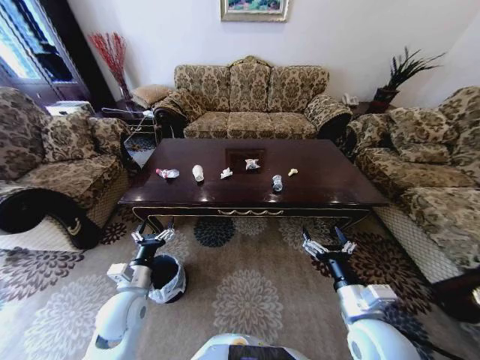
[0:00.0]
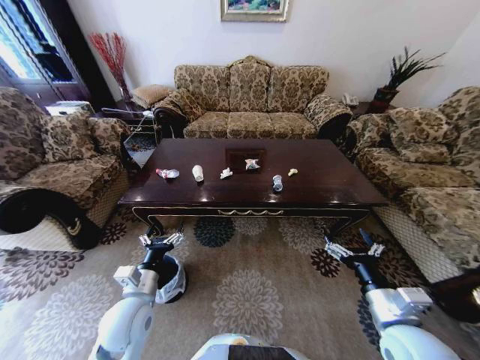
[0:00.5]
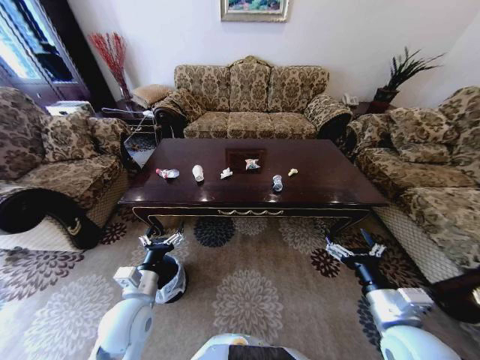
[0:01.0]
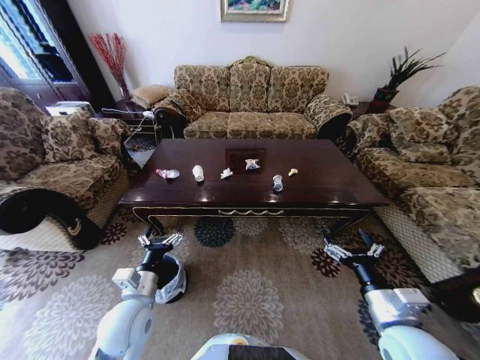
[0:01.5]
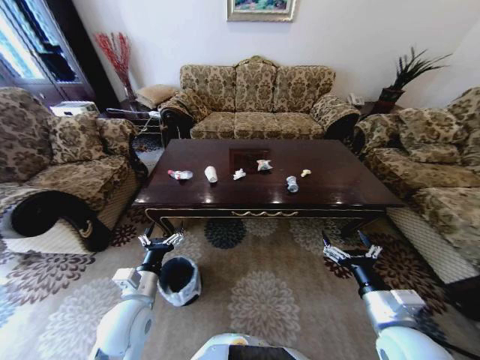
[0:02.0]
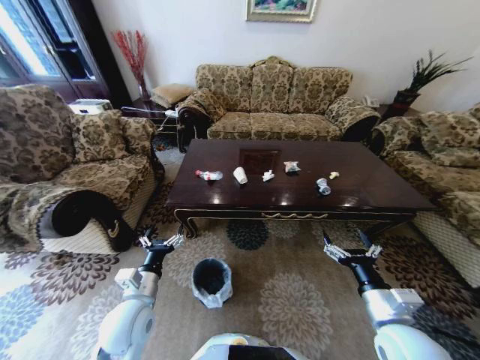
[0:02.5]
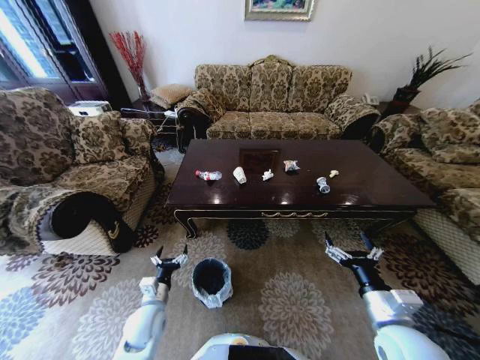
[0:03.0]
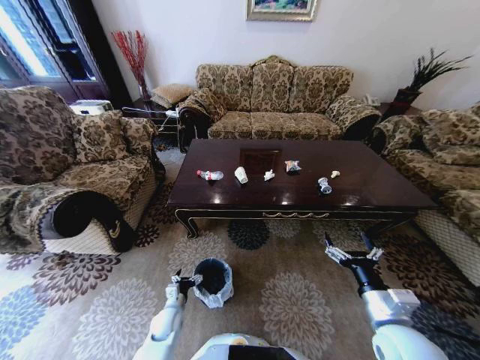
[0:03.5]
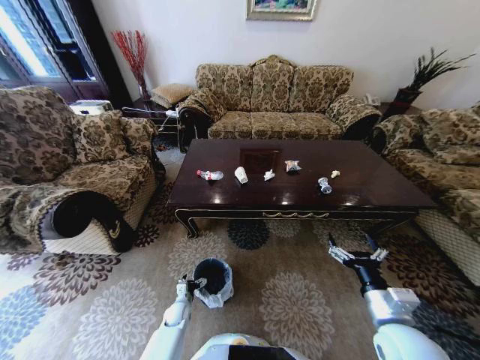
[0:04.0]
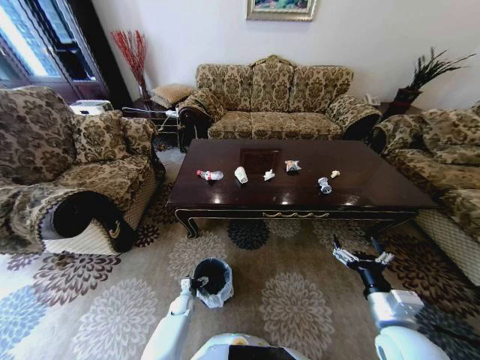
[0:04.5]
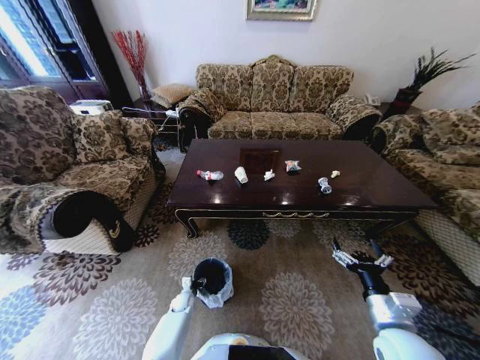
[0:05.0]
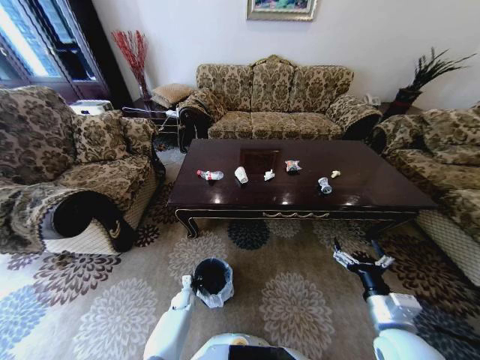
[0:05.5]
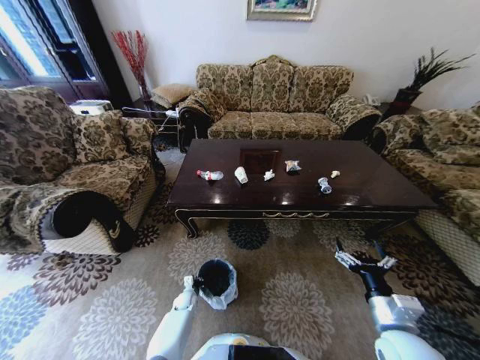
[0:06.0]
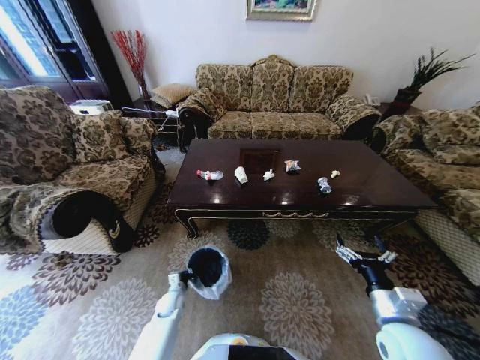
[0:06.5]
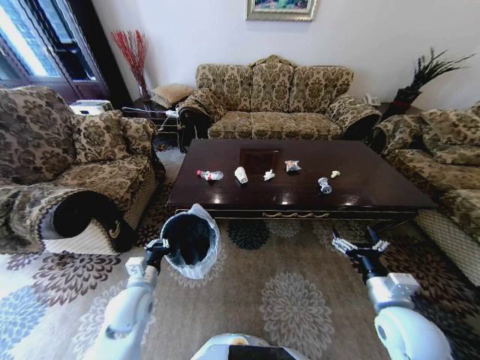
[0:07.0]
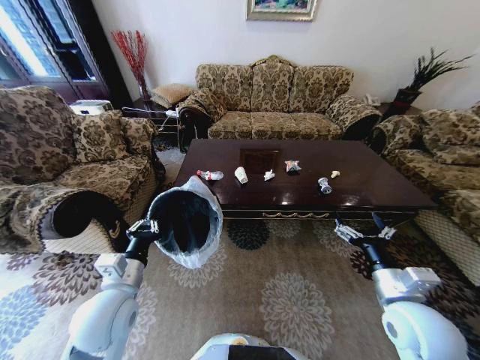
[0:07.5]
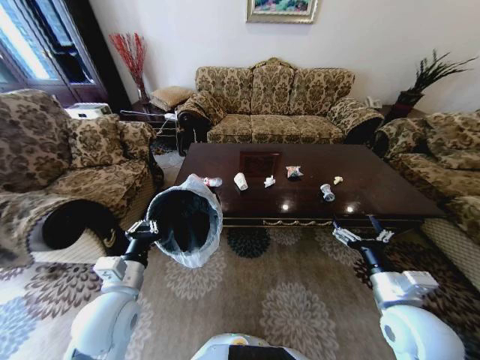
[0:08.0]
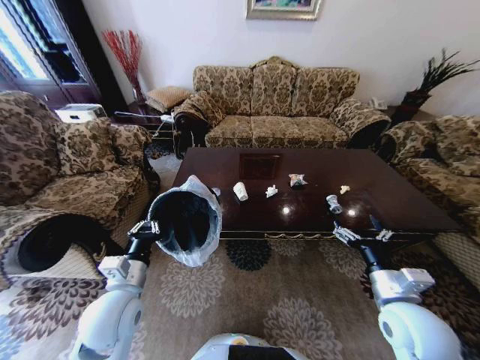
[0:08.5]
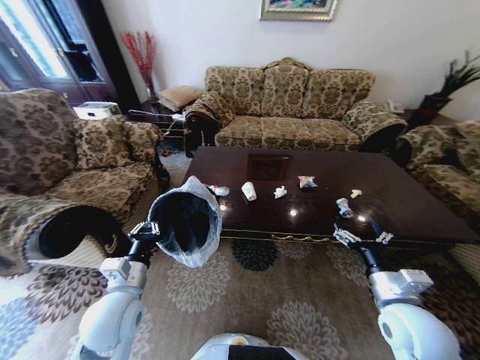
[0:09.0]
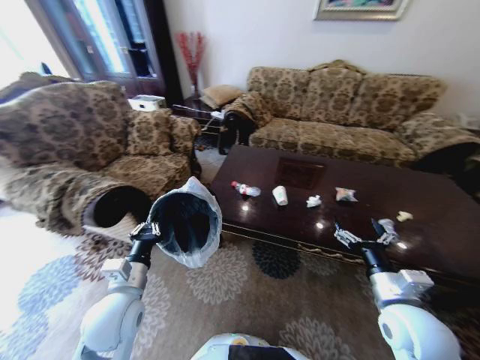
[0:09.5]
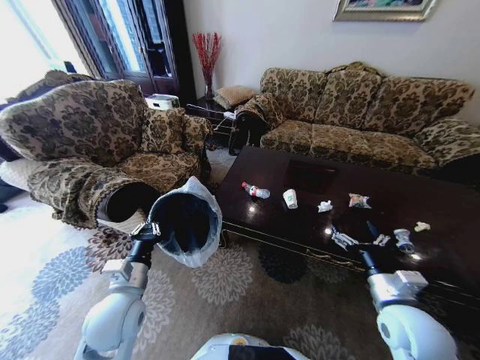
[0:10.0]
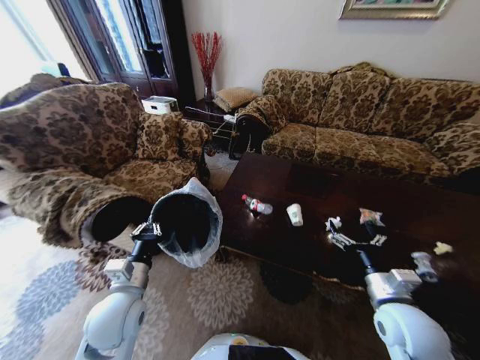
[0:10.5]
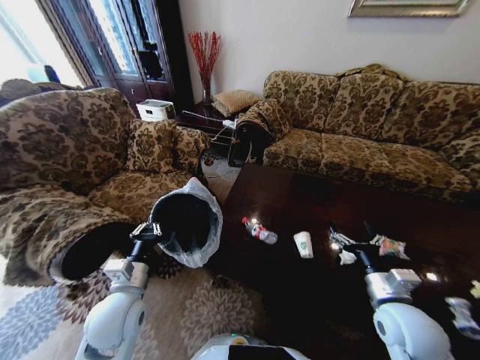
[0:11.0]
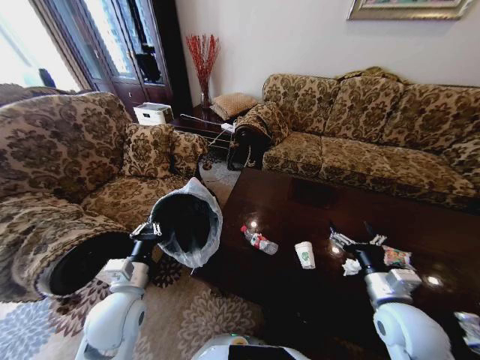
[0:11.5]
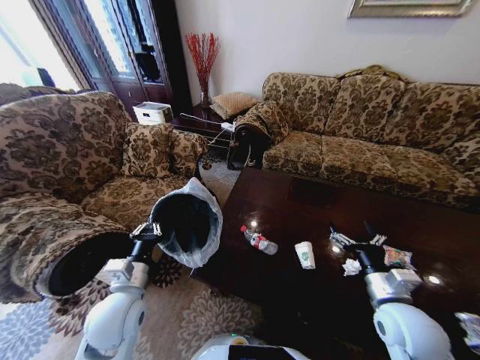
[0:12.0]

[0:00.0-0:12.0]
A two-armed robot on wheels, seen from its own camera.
Task of the whole recording: Move to the front of the table and place the trash on the table into the trash bin.
0:02.0 to 0:04.0: The left gripper travels downward by approximately 30 cm.
0:04.0 to 0:06.0: The left gripper moves approximately 5 cm, and closes.
0:06.0 to 0:08.0: The left gripper heads upward, covering some 40 cm; the right gripper goes approximately 5 cm upward.

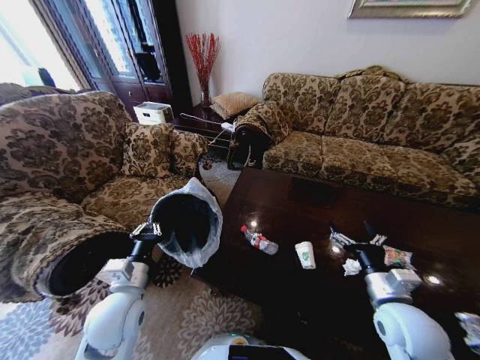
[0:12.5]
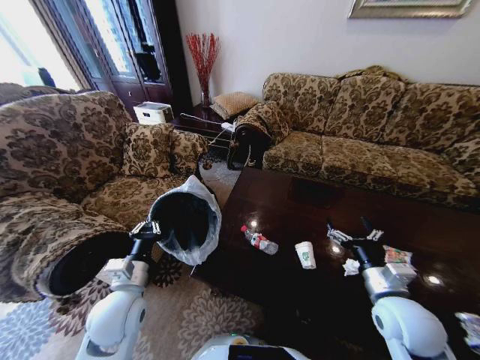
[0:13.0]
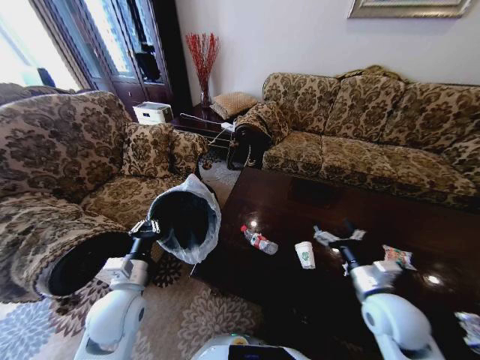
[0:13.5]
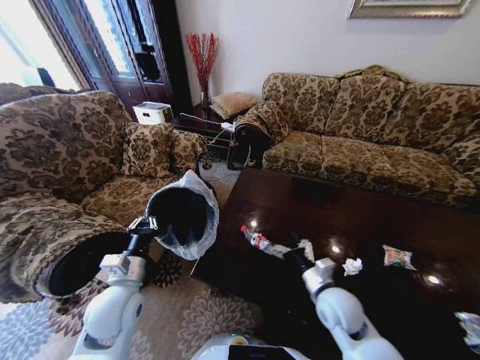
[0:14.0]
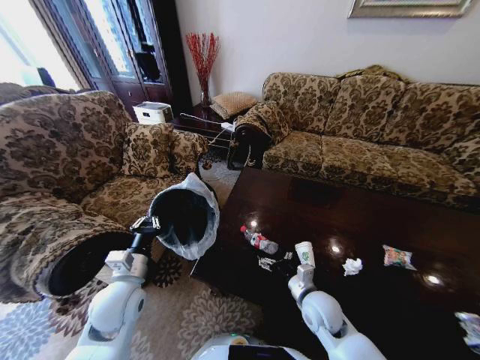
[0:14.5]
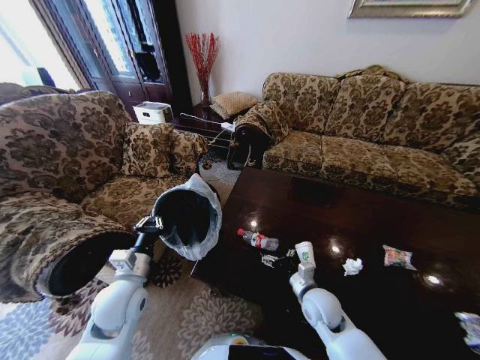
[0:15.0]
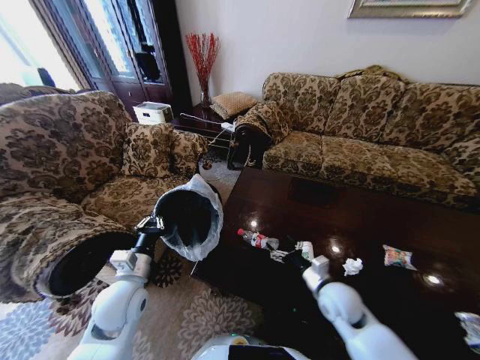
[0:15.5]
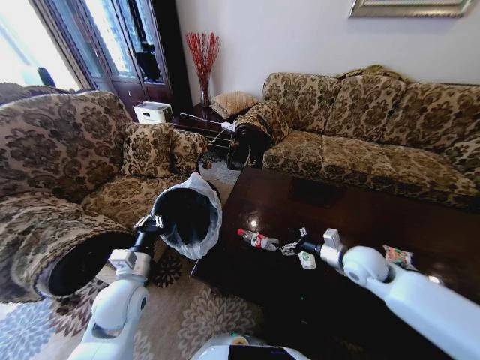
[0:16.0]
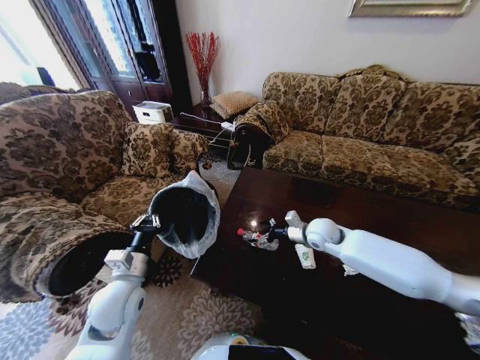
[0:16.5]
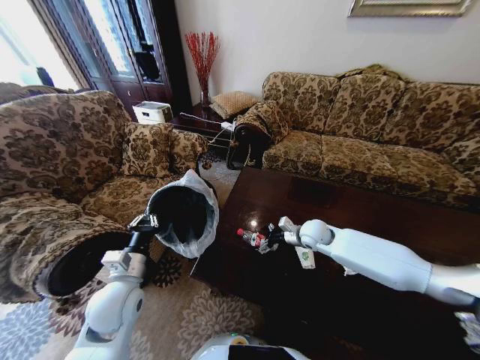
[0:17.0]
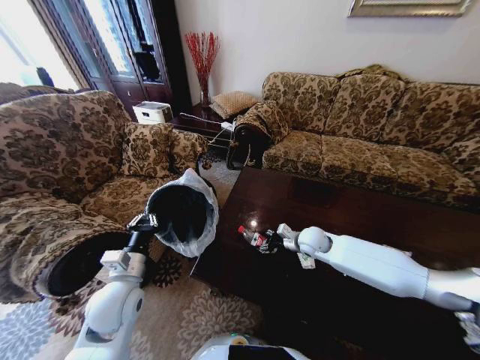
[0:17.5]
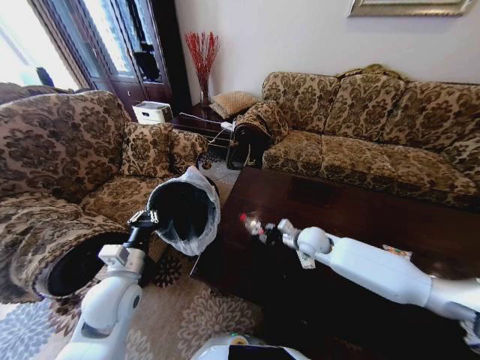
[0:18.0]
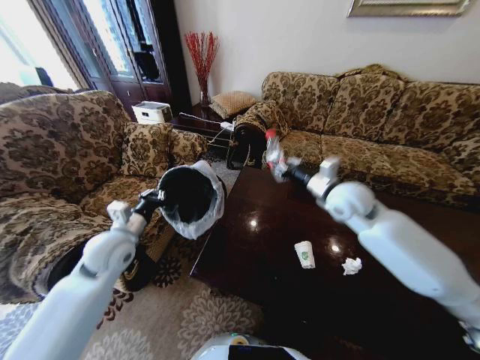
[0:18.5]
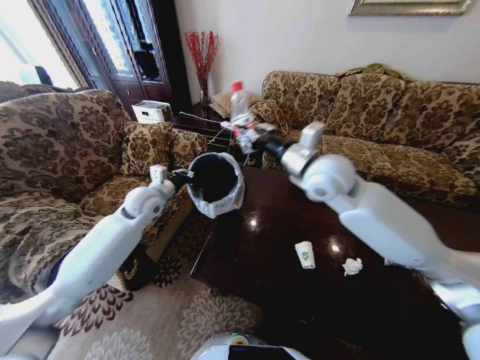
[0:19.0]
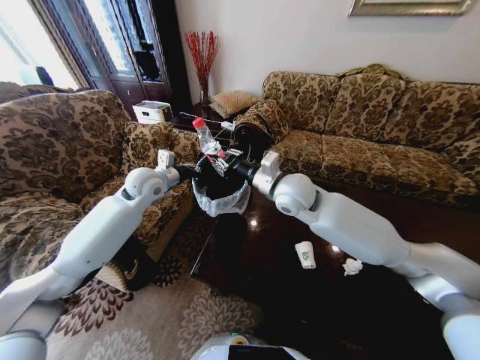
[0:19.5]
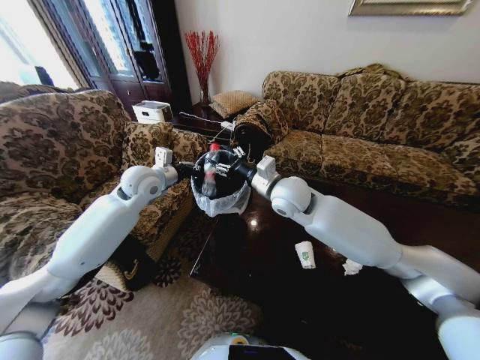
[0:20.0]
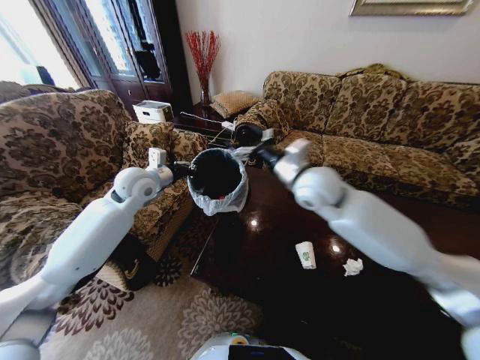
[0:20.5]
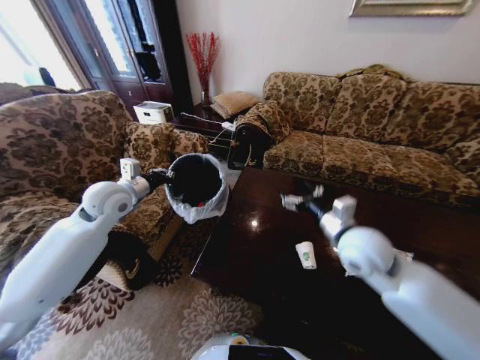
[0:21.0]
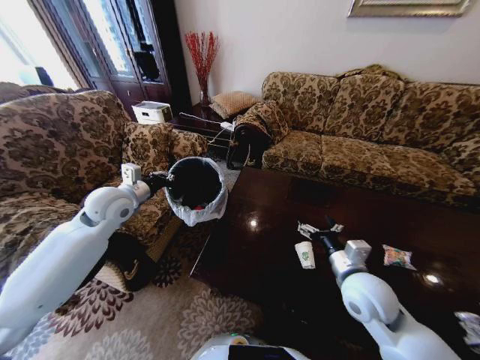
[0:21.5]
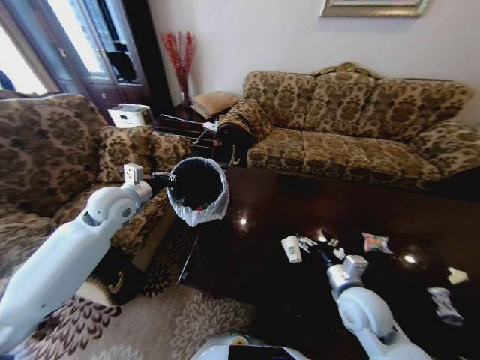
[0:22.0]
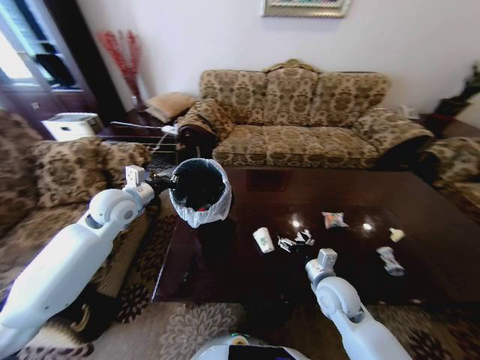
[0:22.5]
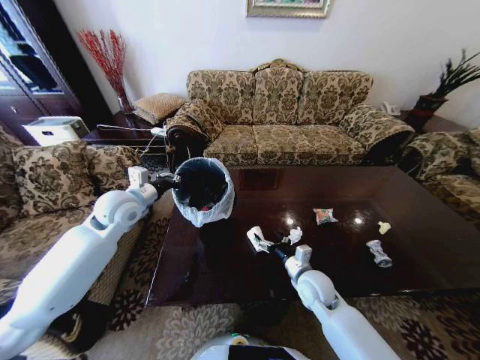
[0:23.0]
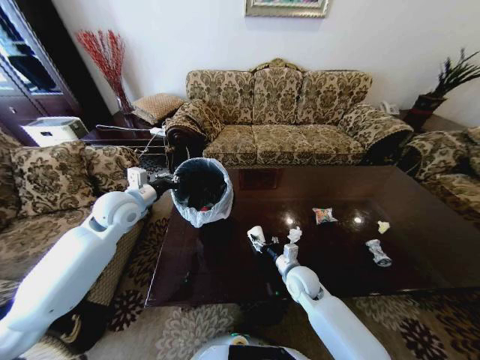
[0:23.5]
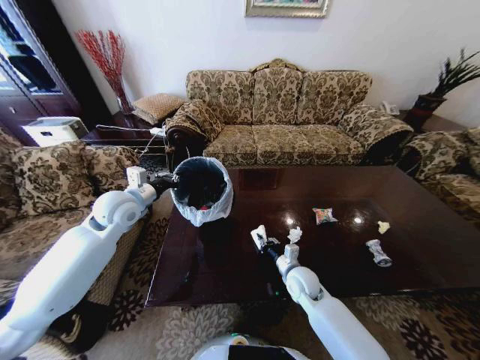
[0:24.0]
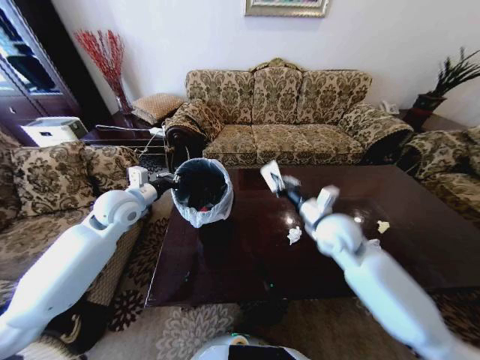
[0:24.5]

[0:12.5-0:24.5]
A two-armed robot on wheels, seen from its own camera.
Task of the whole recording: Move to the front of the table and place the trash on the table into the trash bin.
0:12.5 to 0:14.5: The right gripper moves to the left and downward, roughly 15 cm.
0:14.5 to 0:16.5: The right gripper is displaced forward and upward by some 20 cm.
0:16.5 to 0:18.5: The left gripper shifts roughly 10 cm forward and upward; the right gripper shifts approximately 15 cm upward, and closes its fingers.
0:18.5 to 0:20.5: The right gripper is displaced to the left and upward by some 10 cm, and opens up. The left gripper shifts about 15 cm forward and upward.
0:20.5 to 0:22.5: The right gripper goes about 30 cm downward and backward. Meanwhile the left gripper is displaced backward by approximately 5 cm.
0:22.5 to 0:24.5: The right gripper is displaced upward and forward by about 20 cm, and closes.

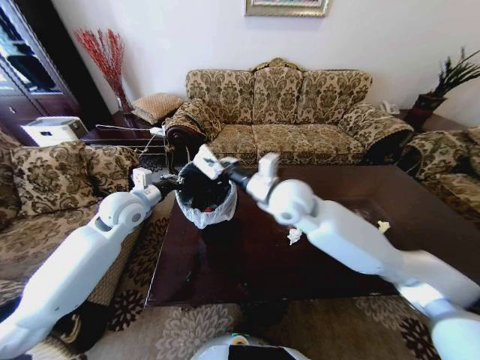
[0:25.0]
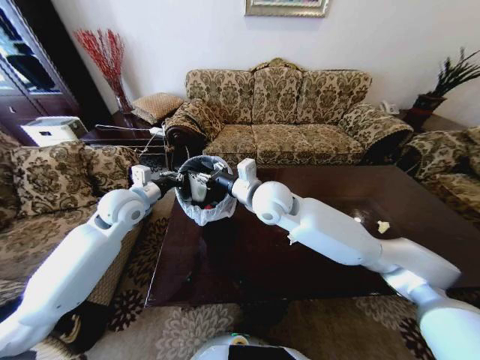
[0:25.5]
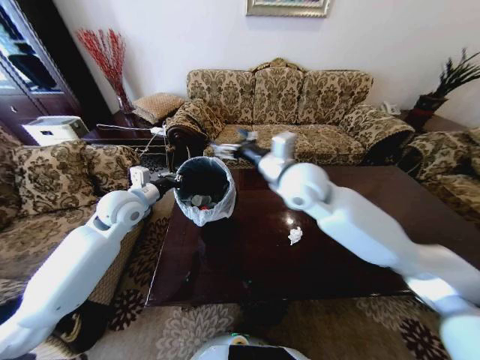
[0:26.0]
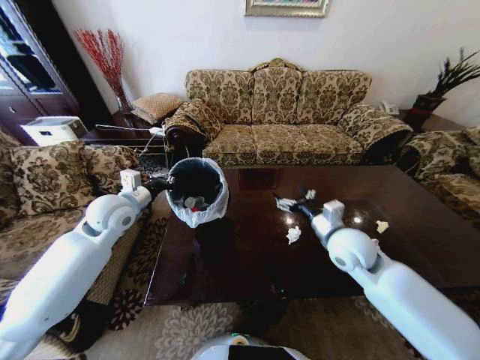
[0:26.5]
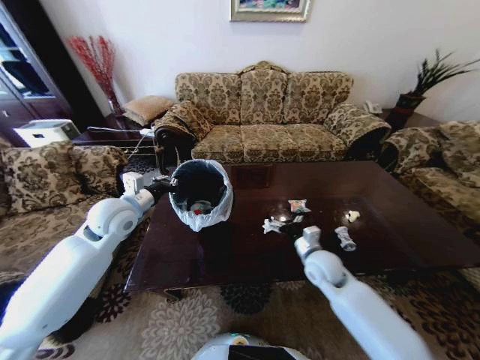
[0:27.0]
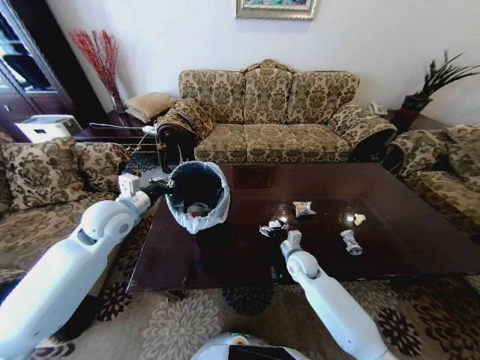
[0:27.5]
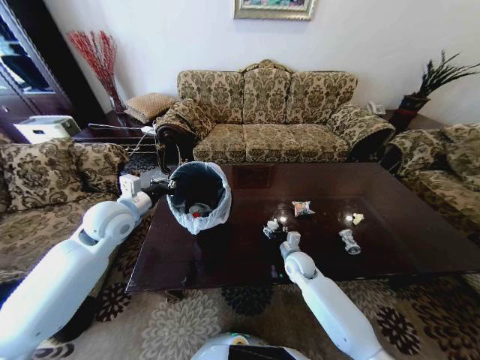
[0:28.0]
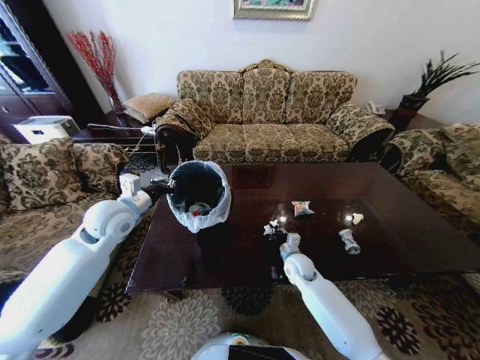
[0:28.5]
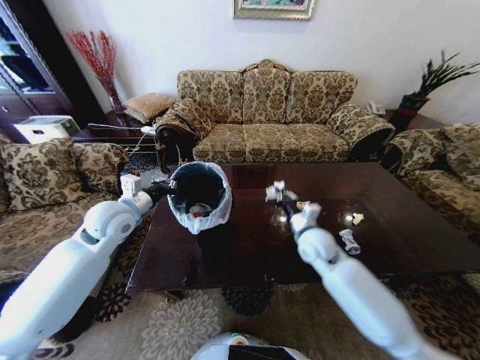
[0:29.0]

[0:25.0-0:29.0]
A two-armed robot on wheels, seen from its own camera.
Task of the whole recording: Move to the front of the table and place the trash on the table into the trash bin.
0:25.0 to 0:27.0: The right gripper shifts about 25 cm downward and to the right, and opens.
0:27.0 to 0:29.0: The right gripper travels downward and back again, about 10 cm each way, and closes up.
